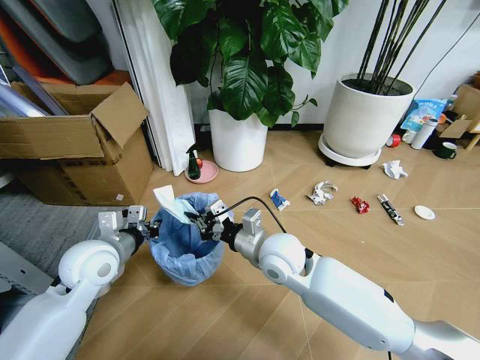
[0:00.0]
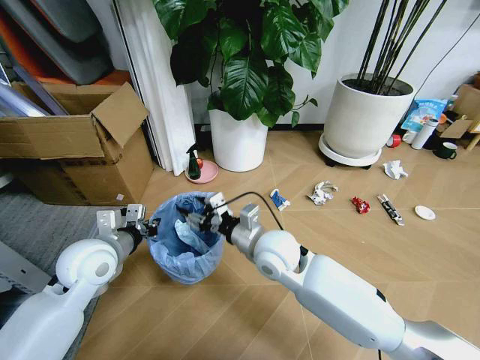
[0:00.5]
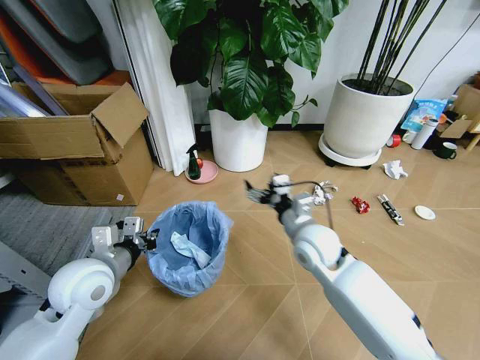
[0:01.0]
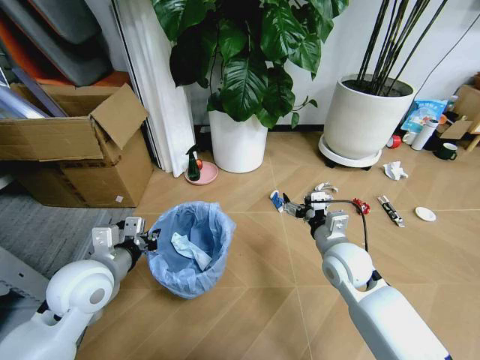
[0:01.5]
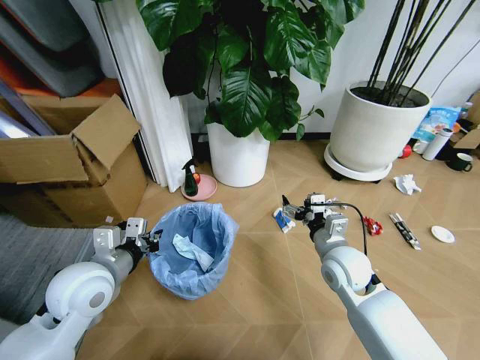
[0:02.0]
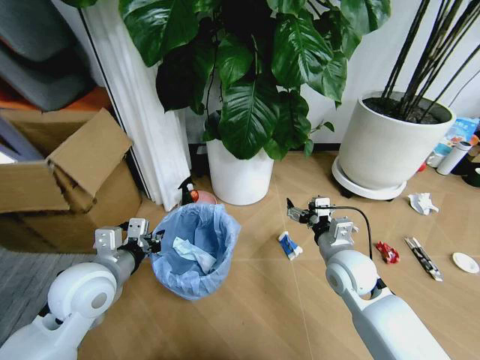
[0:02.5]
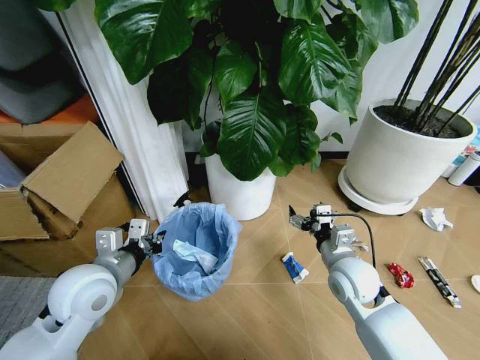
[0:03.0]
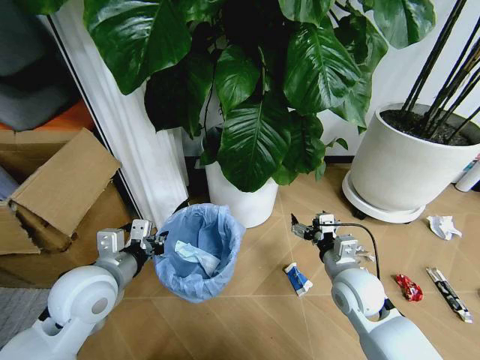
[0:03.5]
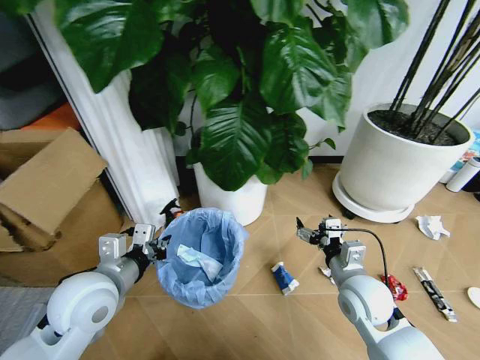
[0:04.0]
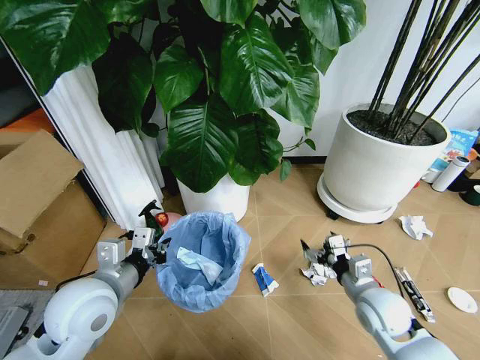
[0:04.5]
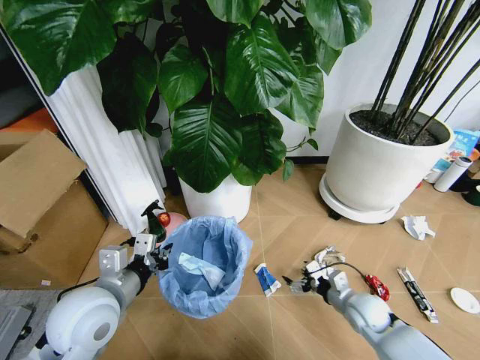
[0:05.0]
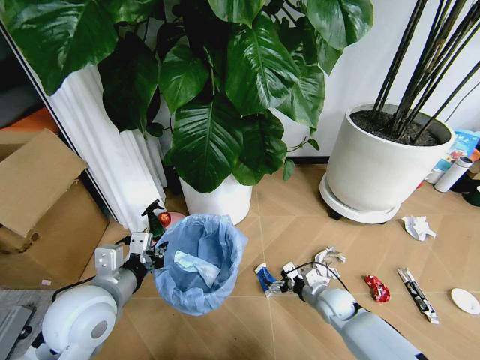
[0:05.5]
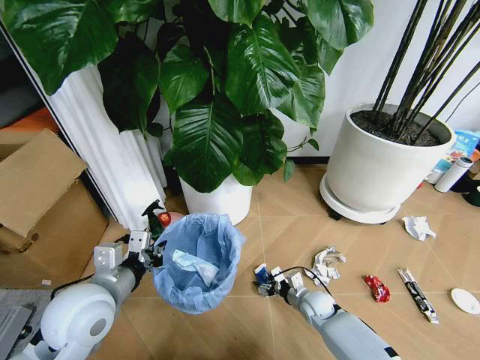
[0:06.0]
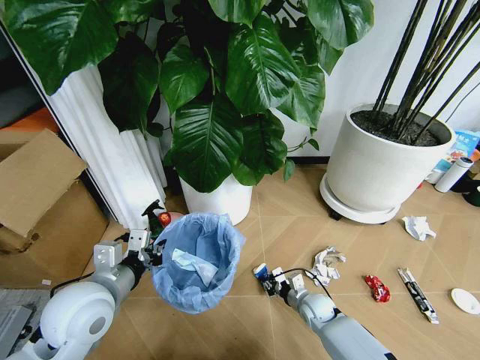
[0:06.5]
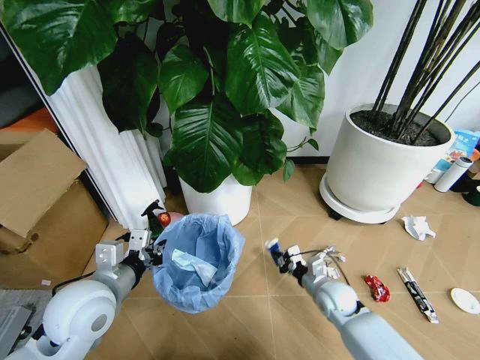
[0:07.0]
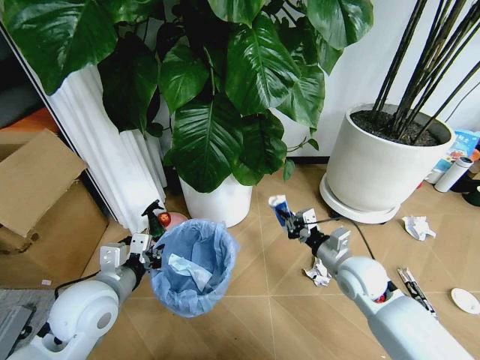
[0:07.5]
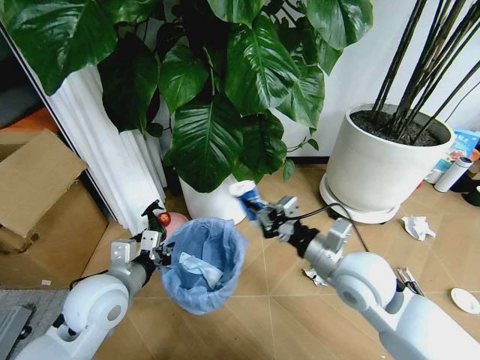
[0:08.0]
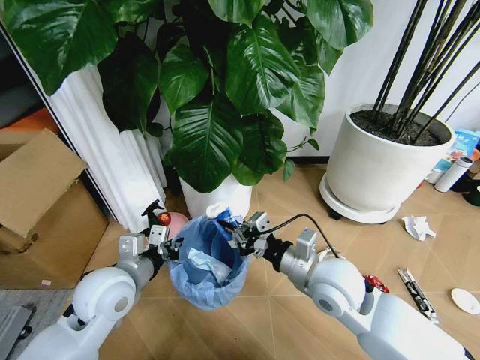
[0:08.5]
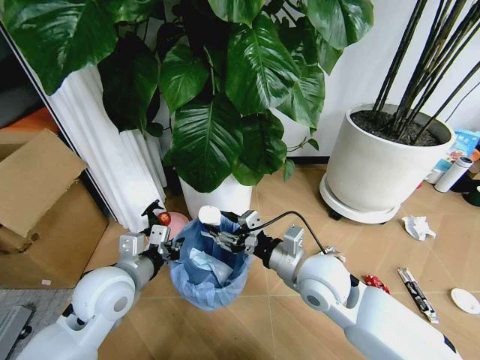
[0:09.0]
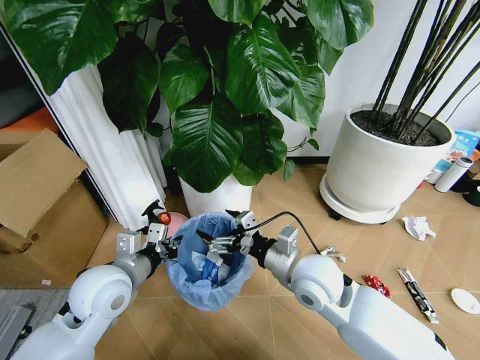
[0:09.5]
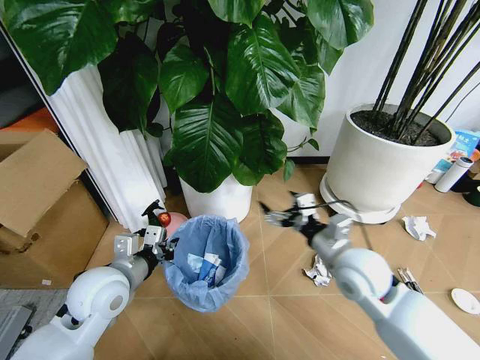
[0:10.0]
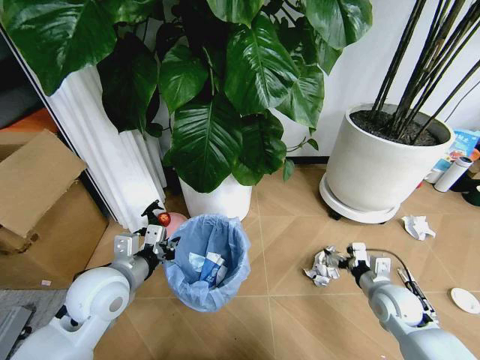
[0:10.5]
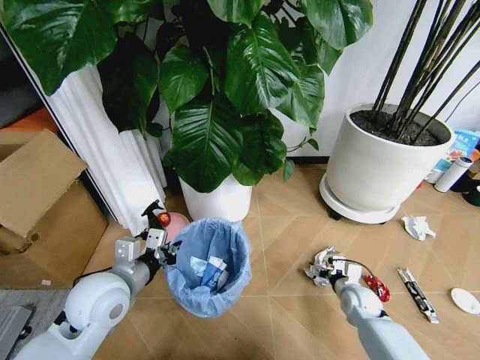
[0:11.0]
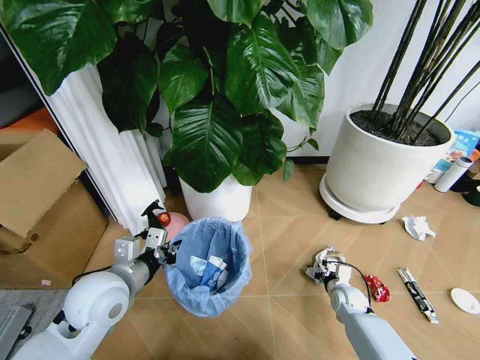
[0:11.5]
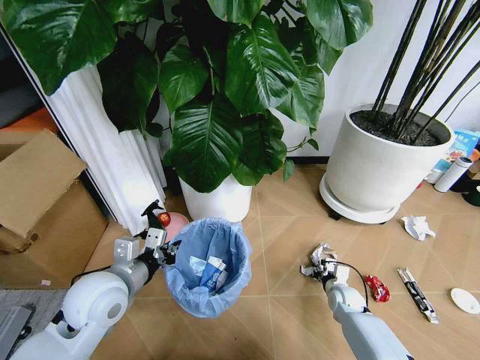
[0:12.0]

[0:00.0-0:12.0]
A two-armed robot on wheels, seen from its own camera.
Task of the whole recording: Pick up the trash bin and place the garbage on the floor into it.
0:00.0 to 0:02.0: The right gripper moves to the right, about 15 cm, and opens. Meanwhile the left gripper travels backward by some 5 cm.
0:02.0 to 0:04.0: The right gripper shifts some 5 cm backward.
0:04.0 to 0:06.0: The right gripper goes approximately 25 cm downward.
0:06.0 to 0:08.0: The right gripper shifts roughly 30 cm upward, and closes up.
0:08.0 to 0:10.0: The right gripper goes to the left and returns, approximately 5 cm each way, and opens.
0:10.0 to 0:12.0: The right gripper is displaced downward by about 30 cm, and closes its fingers.

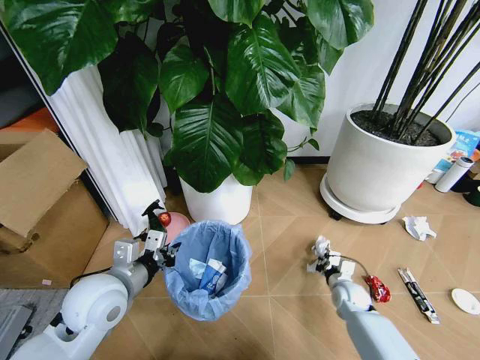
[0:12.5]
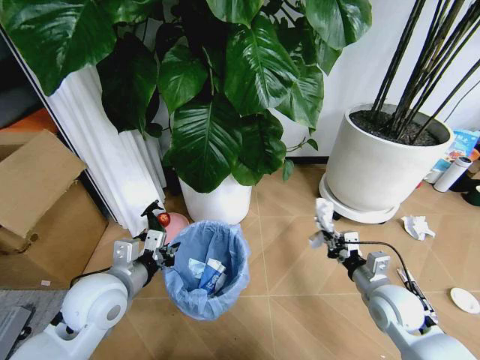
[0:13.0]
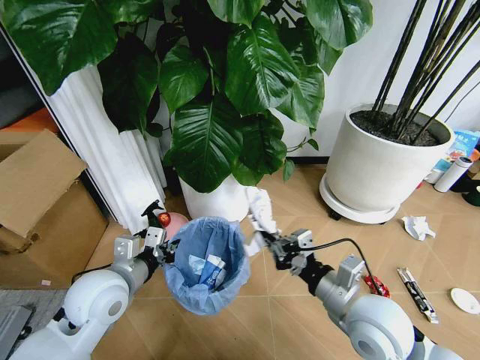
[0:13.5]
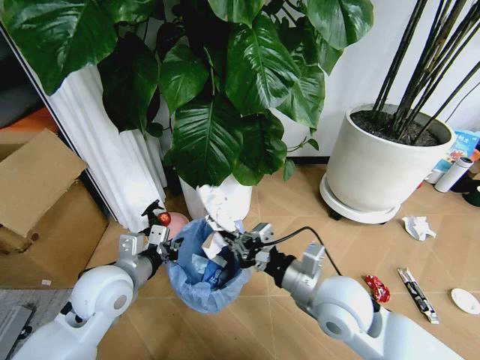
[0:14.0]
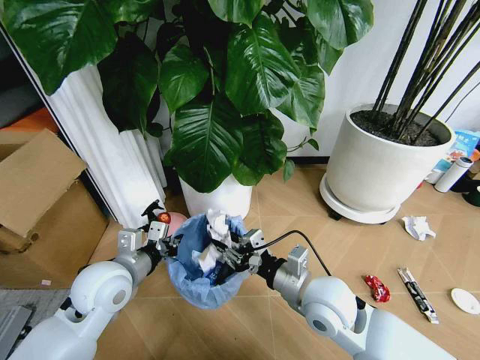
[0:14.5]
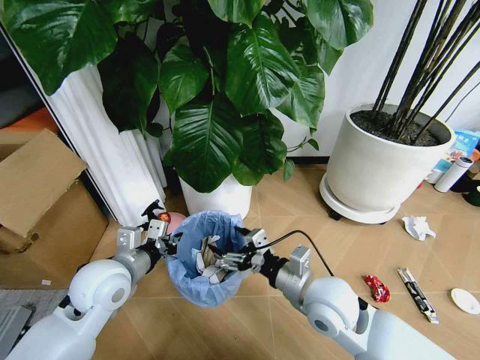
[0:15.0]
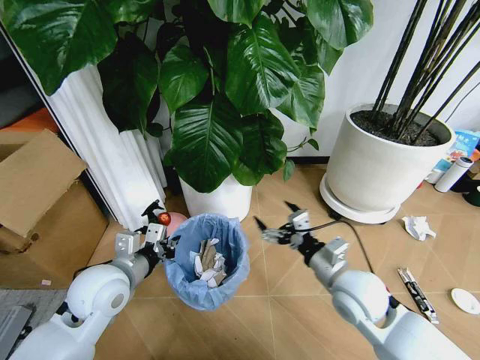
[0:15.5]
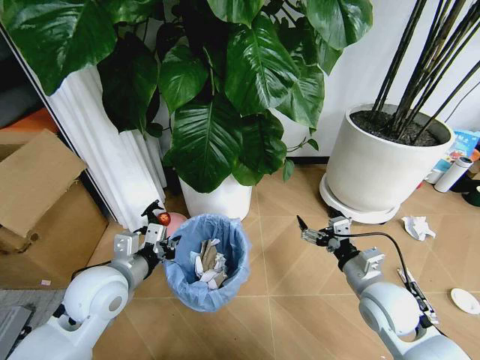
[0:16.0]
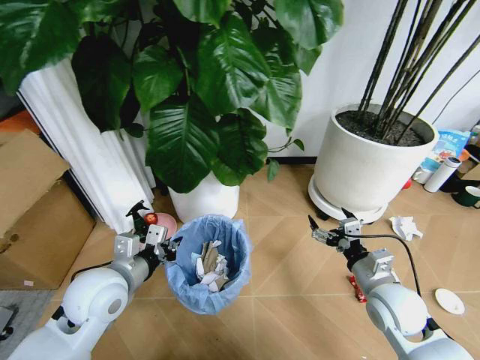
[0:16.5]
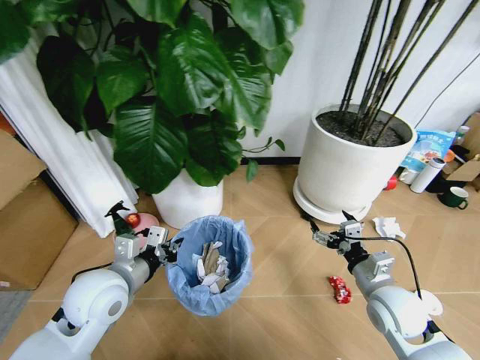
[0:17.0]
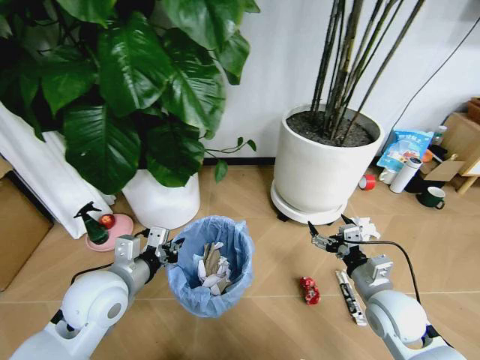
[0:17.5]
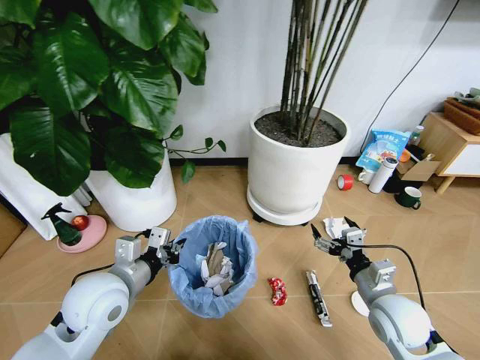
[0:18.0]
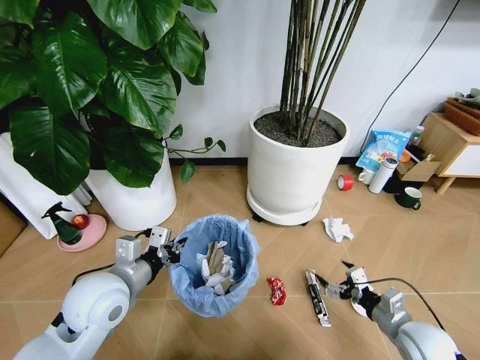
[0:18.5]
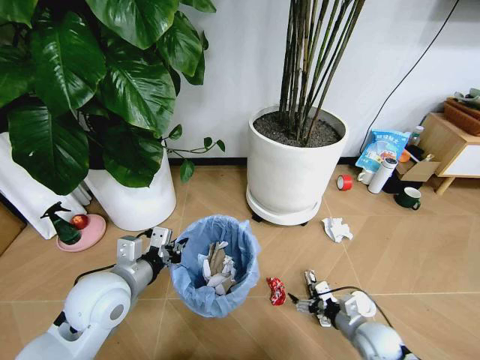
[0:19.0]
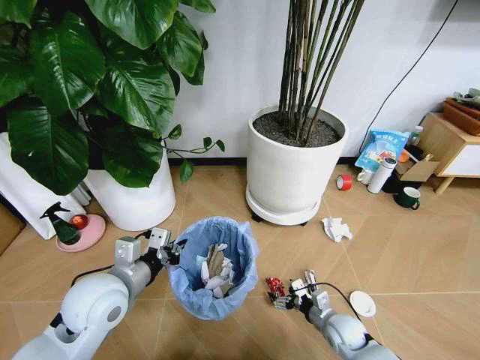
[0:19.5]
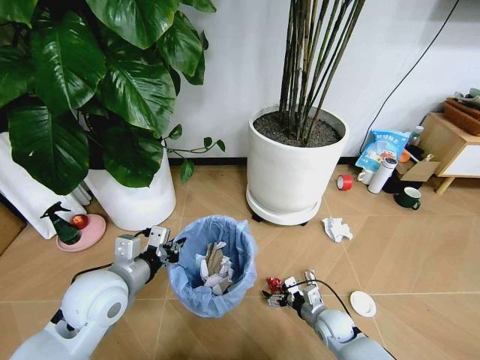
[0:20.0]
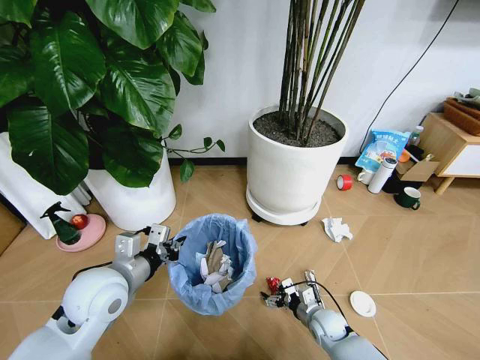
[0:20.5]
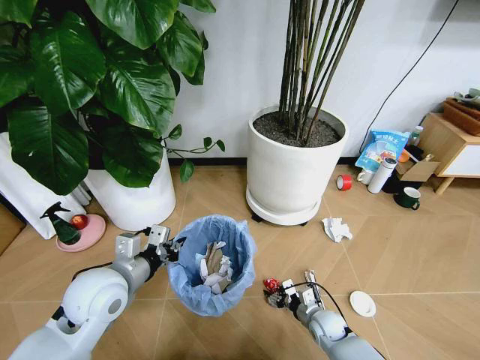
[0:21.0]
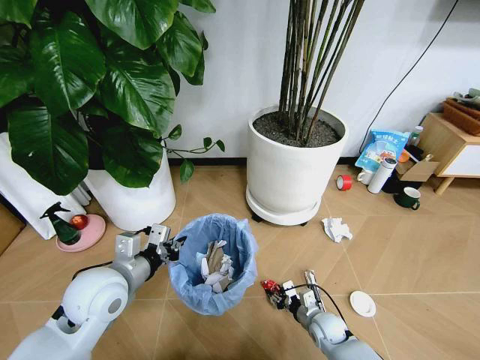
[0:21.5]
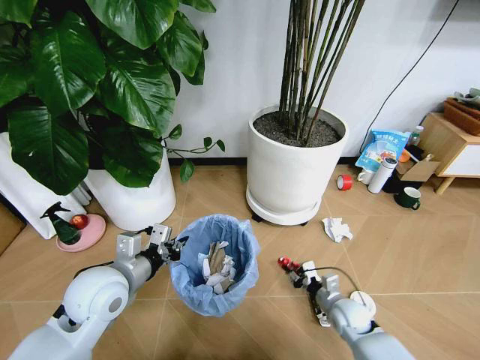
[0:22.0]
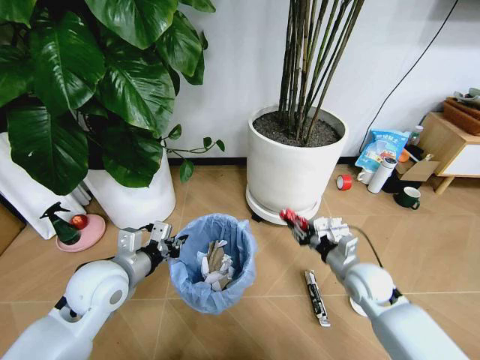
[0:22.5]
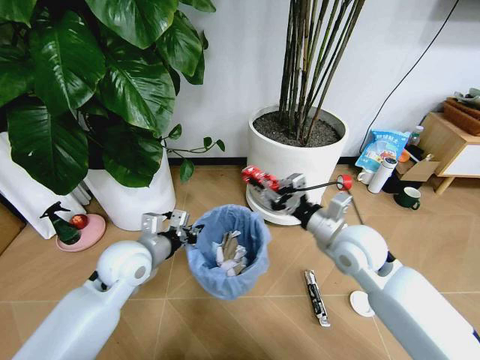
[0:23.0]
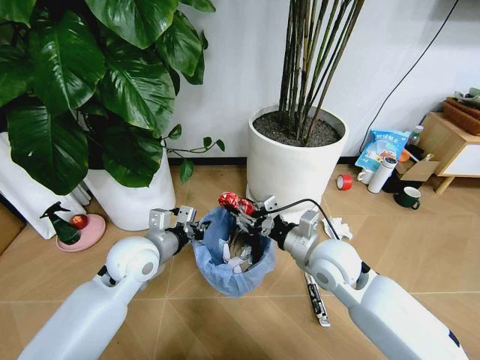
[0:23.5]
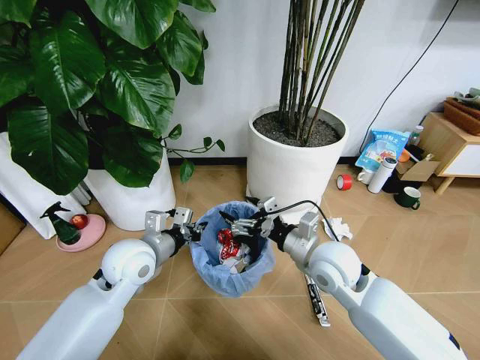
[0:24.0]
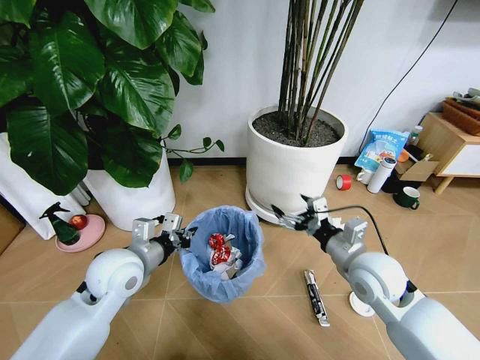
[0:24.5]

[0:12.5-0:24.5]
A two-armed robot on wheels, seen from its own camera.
Task of the whole recording: Pick up the trash bin and place the garbage on the floor into it.
0:12.5 to 0:14.5: The right gripper heads upward and to the left, covering some 30 cm.
0:14.5 to 0:16.5: The right gripper moves to the right, approximately 15 cm, and opens its fingers.
0:16.5 to 0:18.5: The right gripper is displaced to the right and downward by about 10 cm.
0:18.5 to 0:20.5: The right gripper travels downward, to the left and forward by some 25 cm.
0:20.5 to 0:22.5: The right gripper goes some 20 cm upward, and closes.
0:22.5 to 0:24.5: The right gripper heads upward, covering roughly 10 cm, and opens its fingers.

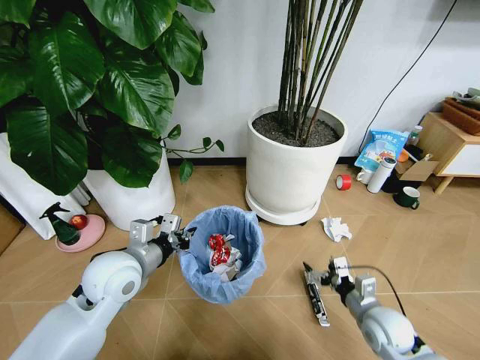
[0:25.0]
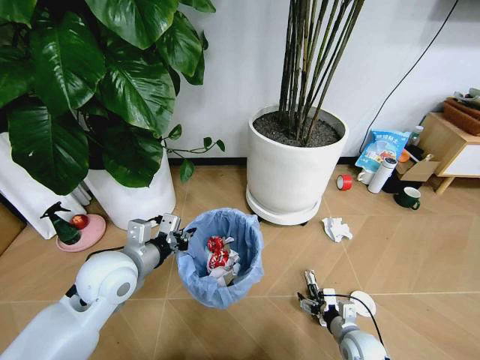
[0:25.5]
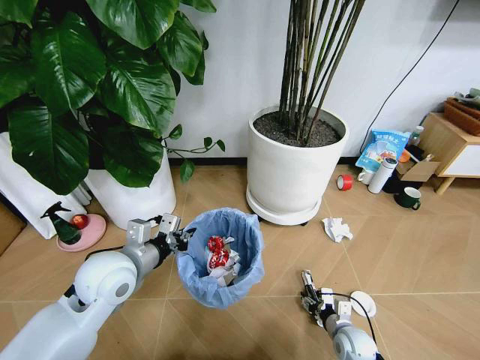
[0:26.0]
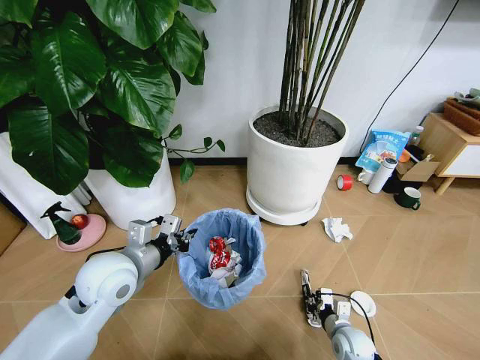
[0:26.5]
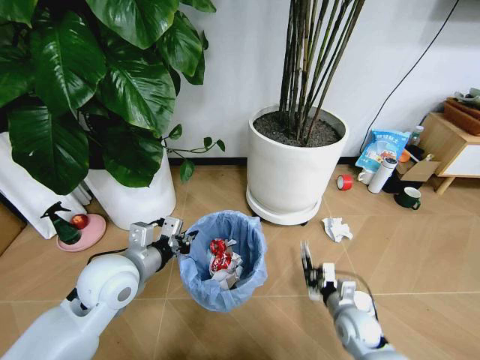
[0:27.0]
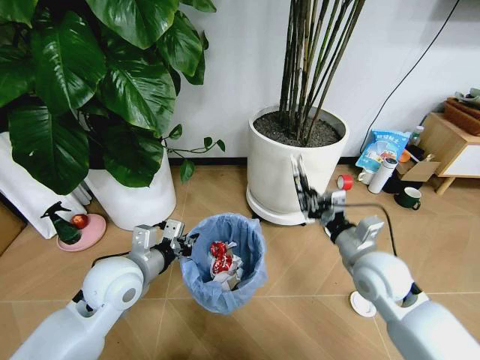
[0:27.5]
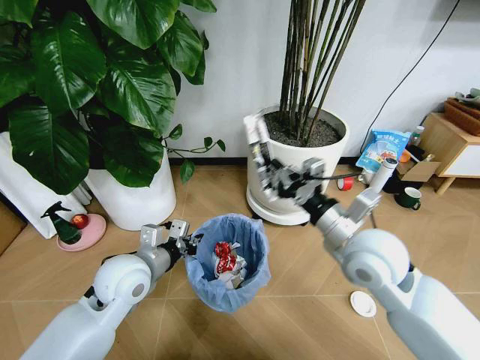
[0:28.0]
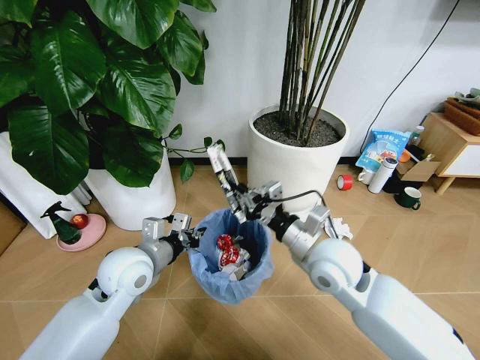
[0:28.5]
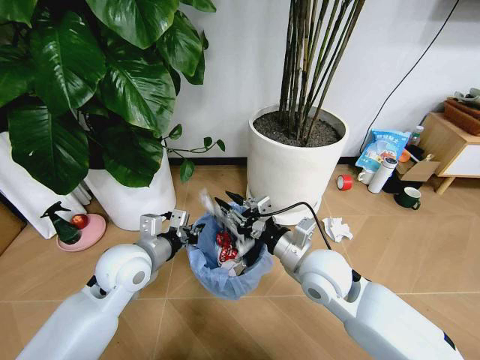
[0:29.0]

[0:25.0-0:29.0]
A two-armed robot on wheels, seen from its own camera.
Task of the whole recording: Pick up the trash bin and place the garbage on the floor into it.
0:25.0 to 0:27.0: The right gripper heads downward, covering about 5 cm, and closes.
0:27.0 to 0:29.0: The right gripper goes about 25 cm upward and to the left.
